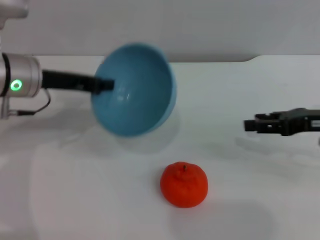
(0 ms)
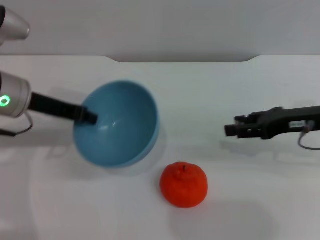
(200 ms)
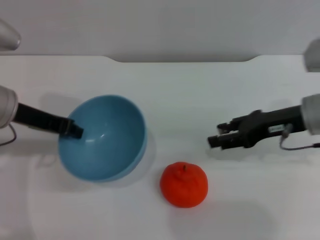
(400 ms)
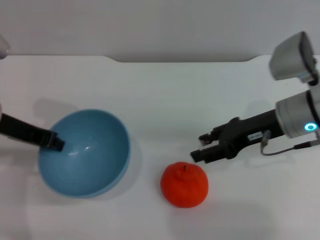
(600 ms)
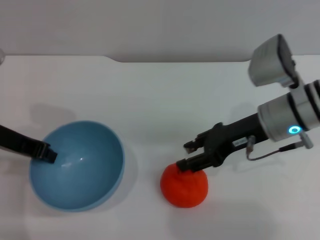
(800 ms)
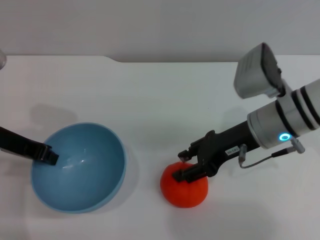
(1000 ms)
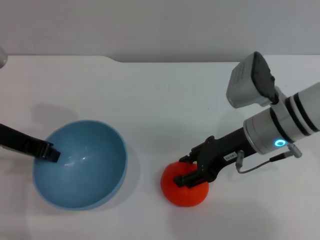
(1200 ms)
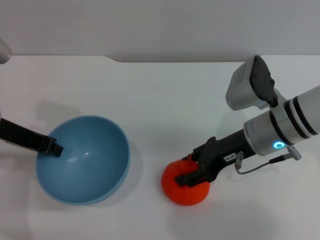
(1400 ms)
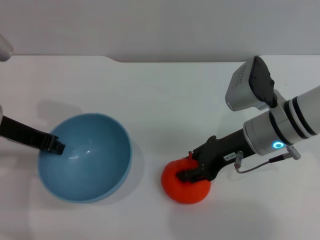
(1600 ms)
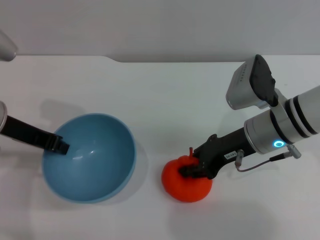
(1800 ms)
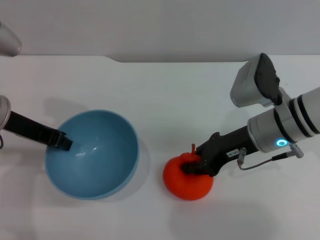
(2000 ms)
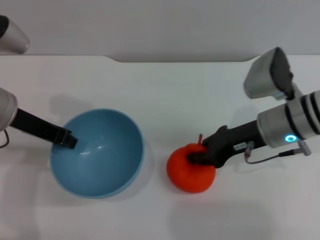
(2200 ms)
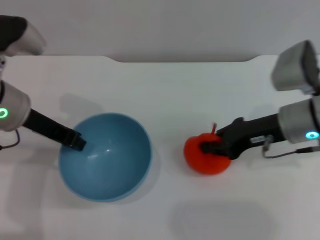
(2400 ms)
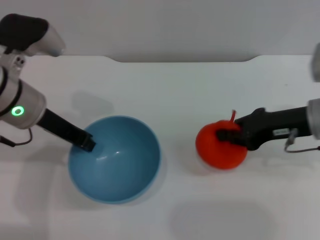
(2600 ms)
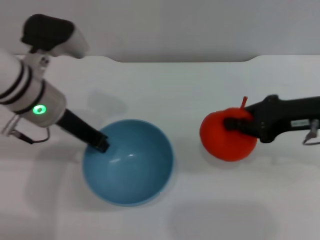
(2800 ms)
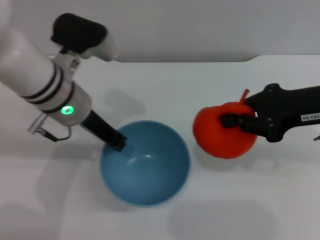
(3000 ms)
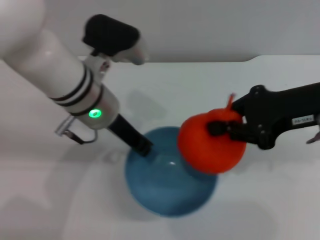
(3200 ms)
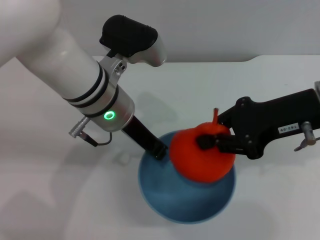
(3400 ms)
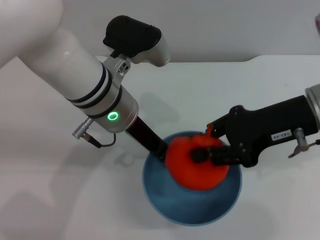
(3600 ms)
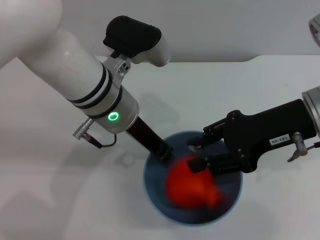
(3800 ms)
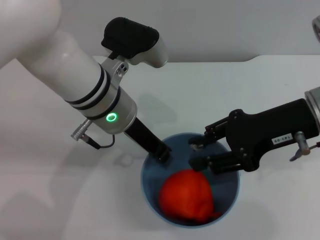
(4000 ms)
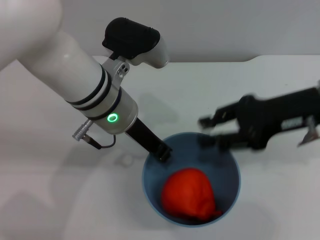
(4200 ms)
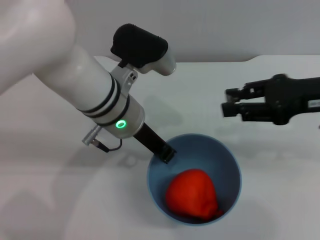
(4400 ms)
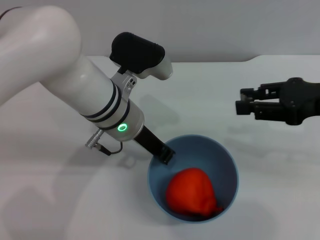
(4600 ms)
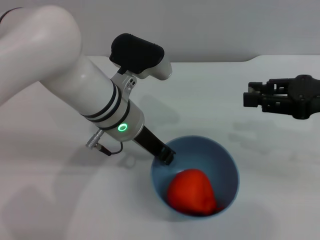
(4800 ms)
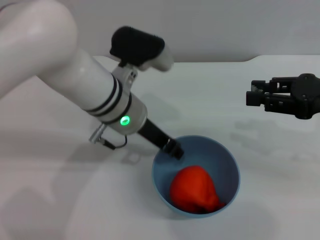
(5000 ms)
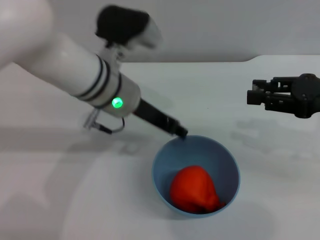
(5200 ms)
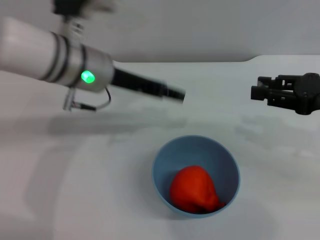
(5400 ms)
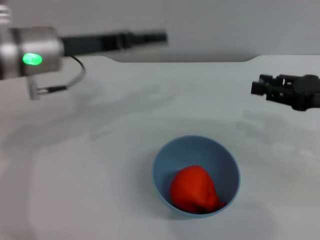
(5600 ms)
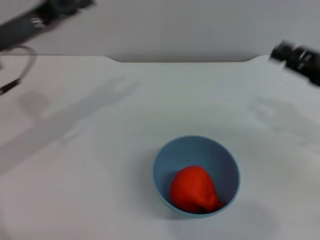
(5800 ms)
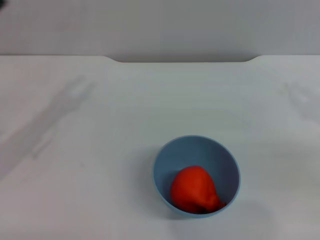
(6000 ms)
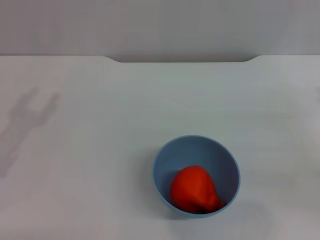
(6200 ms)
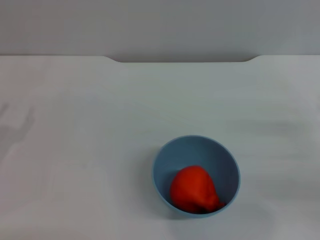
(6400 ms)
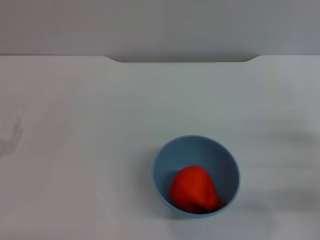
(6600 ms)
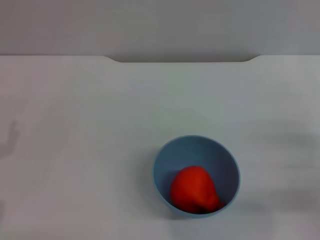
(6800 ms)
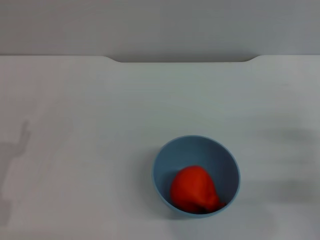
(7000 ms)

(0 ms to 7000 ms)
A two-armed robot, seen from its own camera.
Task of the whole recording: put the orange into the blue bowl and pour it out repeatedly.
Step, 0 ms - 2400 ms: Pick up the orange with the right gripper.
Step, 2800 ms - 4000 ms: Place the orange into the bowl.
Step, 4200 ms - 5200 ms: Place the bowl on the table.
0 ms - 1400 ms: The right gripper goes roughly 15 cm to the left. The left gripper travels backward by about 5 cm.
1400 ms - 2800 ms: The left gripper is displaced to the right by roughly 10 cm; the right gripper travels to the right and upward by about 10 cm, and closes its fingers.
2800 ms - 4200 ms: The right gripper opens; the left gripper moves to the right, roughly 10 cm.
4200 ms - 5600 ms: The left gripper moves to the left, some 10 cm, and opens its fingers; the right gripper goes roughly 10 cm to the right.
5600 ms - 7000 ms: The right gripper shifts roughly 15 cm downward and backward; the left gripper moves downward, backward and to the left, some 25 cm.
